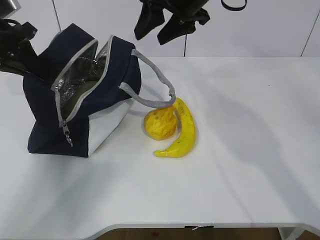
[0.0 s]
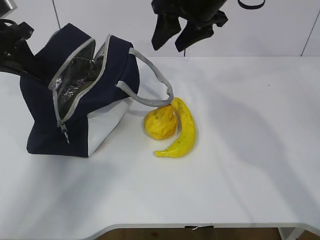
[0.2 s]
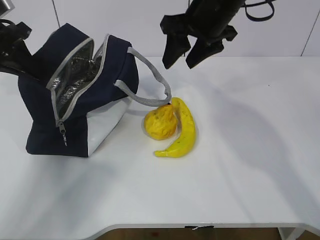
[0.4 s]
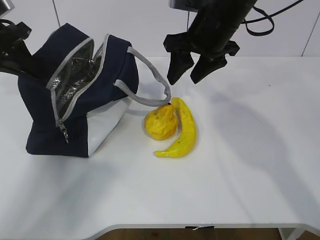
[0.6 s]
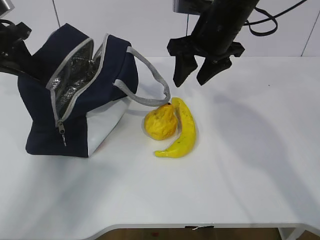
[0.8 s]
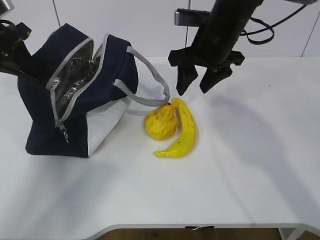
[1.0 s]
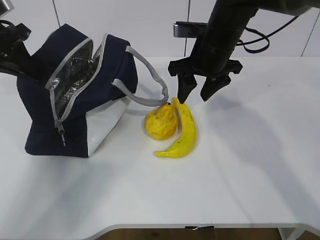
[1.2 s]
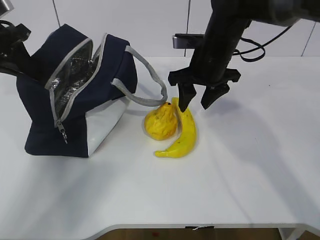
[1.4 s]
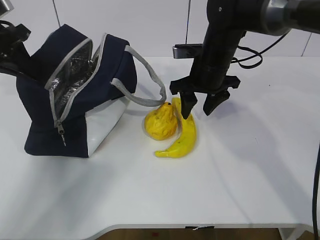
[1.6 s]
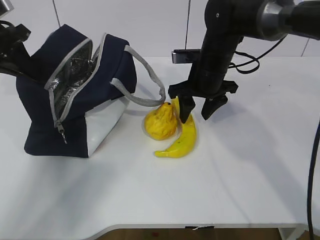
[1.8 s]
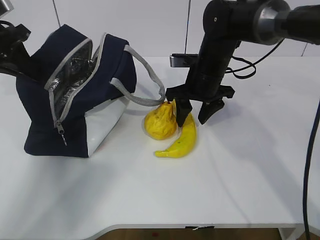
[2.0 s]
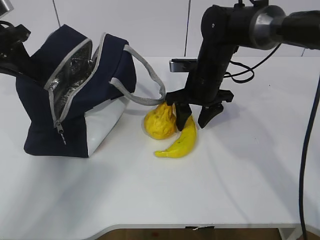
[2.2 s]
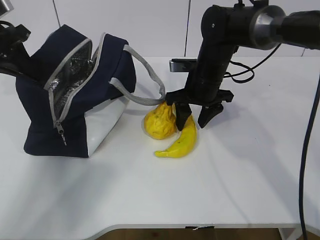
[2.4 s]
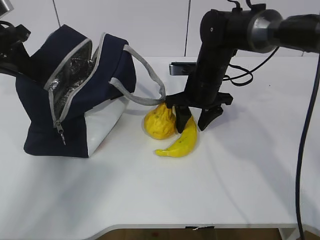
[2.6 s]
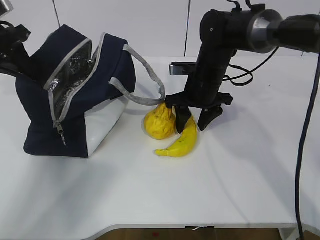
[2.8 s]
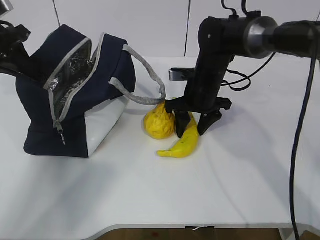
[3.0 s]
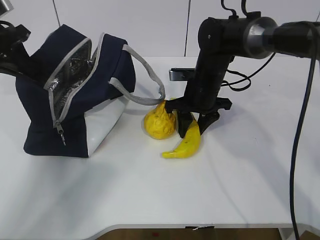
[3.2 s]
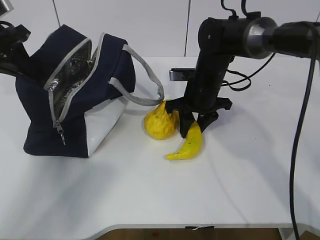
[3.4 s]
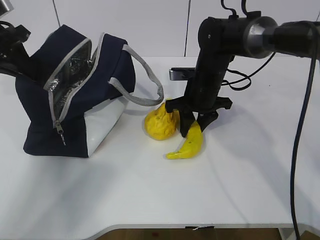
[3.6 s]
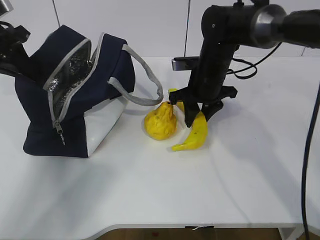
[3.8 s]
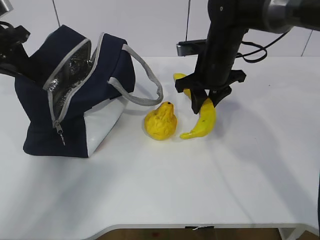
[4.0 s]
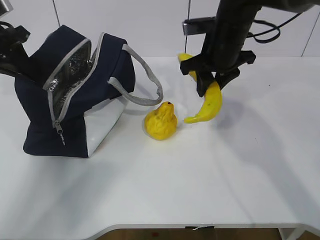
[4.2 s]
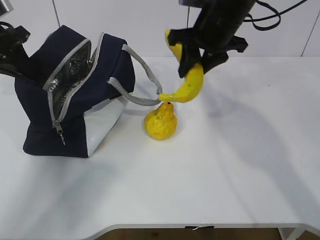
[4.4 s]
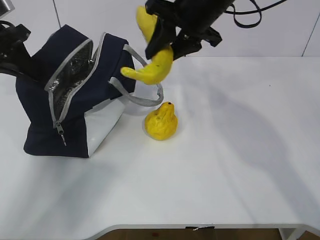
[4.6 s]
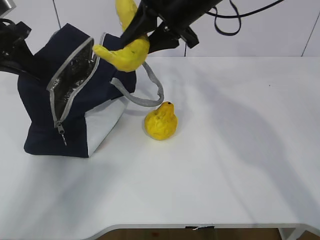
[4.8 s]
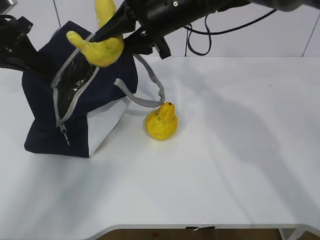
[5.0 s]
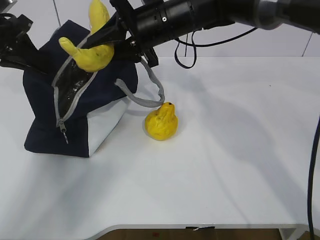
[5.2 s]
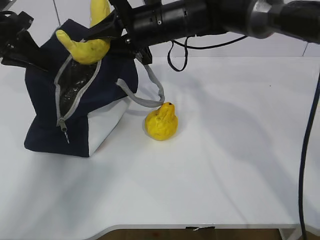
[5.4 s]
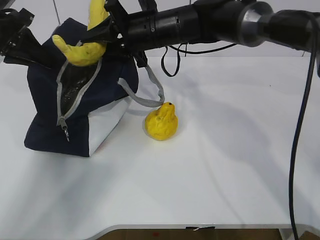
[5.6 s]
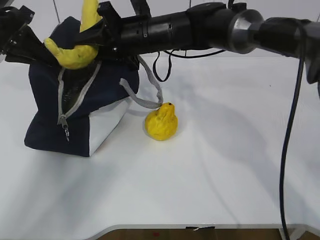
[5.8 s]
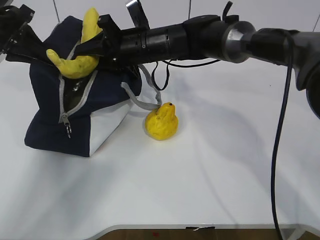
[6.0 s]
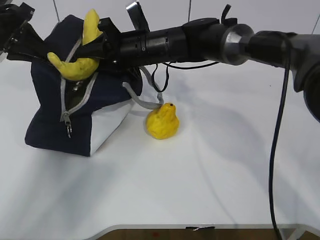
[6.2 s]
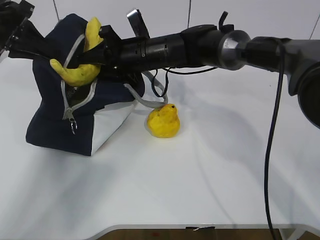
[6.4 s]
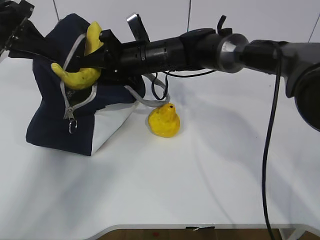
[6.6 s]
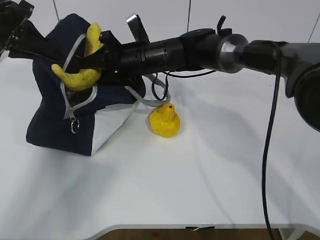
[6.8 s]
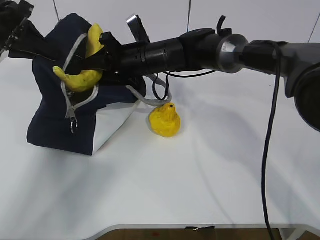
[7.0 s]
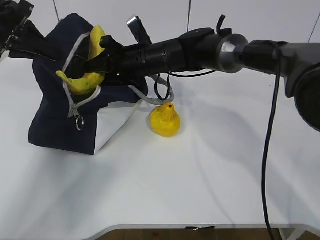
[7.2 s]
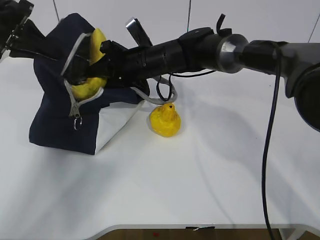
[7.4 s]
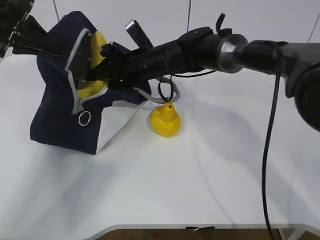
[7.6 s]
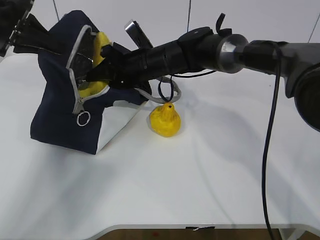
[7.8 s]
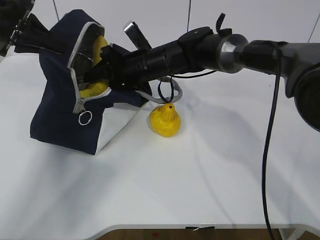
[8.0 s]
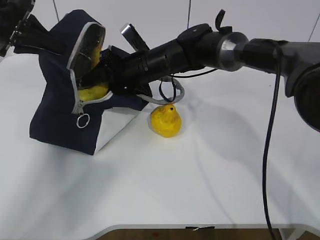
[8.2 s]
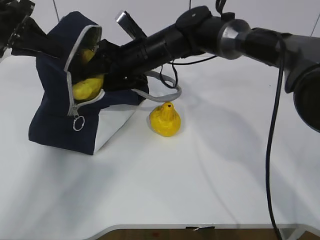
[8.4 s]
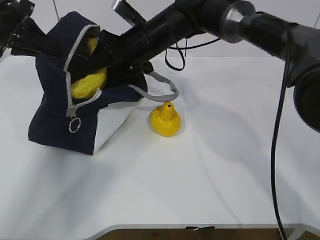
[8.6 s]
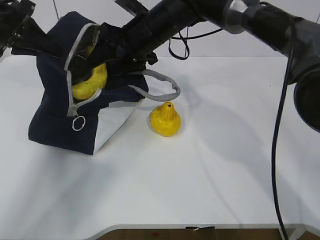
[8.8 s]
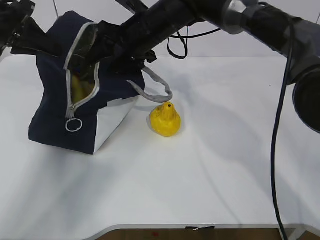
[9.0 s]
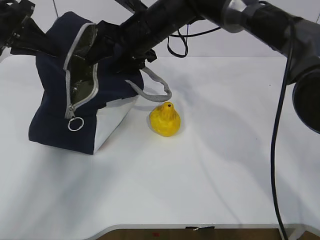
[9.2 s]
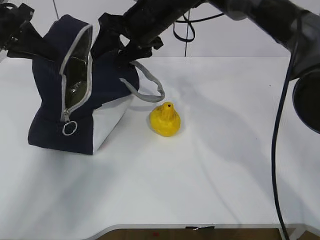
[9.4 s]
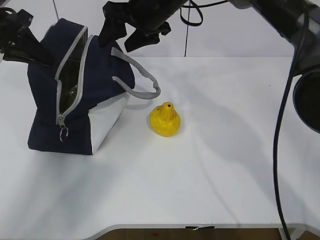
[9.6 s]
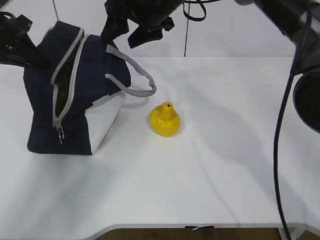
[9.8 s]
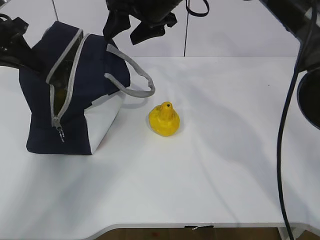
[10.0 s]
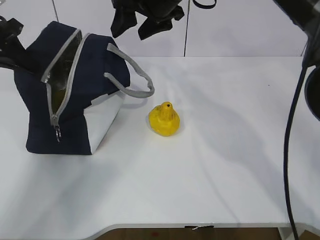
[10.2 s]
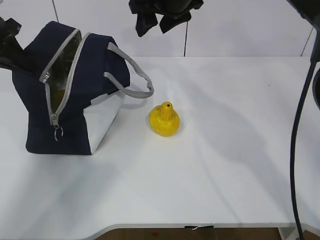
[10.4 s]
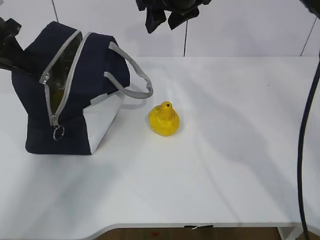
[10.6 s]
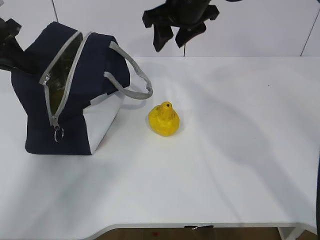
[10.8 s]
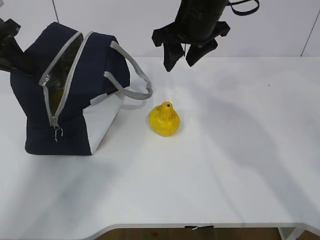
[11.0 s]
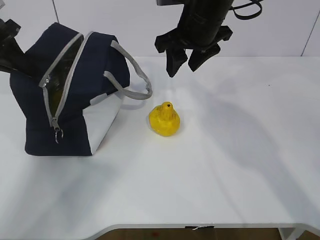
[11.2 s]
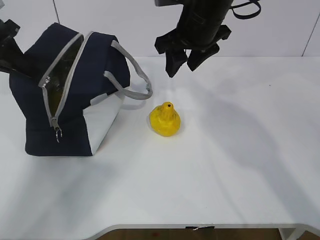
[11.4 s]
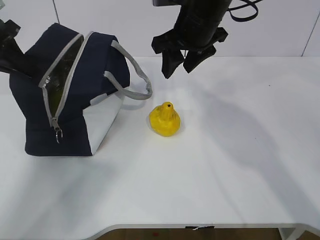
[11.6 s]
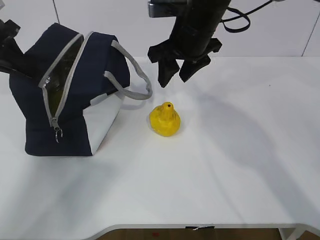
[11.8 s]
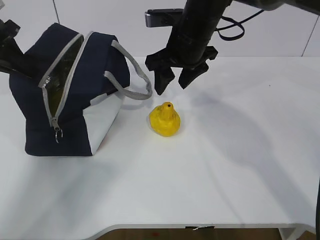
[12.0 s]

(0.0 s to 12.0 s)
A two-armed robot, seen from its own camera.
Step, 0.0 s - 3.4 s: Place it into the bag with your right hand.
Step, 3.6 s - 7.4 s: Grab the pear with your right hand.
Step, 9.4 s - 11.0 s: Grab the lunch bag with your right hand.
0.0 s - 1.6 s: The right gripper shifts some 15 cm downward.
1.6 s - 3.0 s: The right gripper moves downward, approximately 5 cm.
3.0 s - 4.4 s: The right gripper travels upward by about 15 cm.
4.4 s - 6.0 s: The right gripper heads to the left and downward, covering some 15 cm.
7.6 s - 9.0 s: The right gripper is displaced upward by some 5 cm, and opens its fingers.
9.0 s - 10.4 s: The right gripper is displaced upward by some 5 cm.
10.4 s - 12.0 s: The right gripper travels downward by approximately 5 cm.

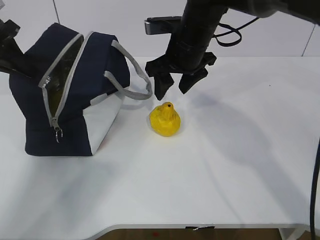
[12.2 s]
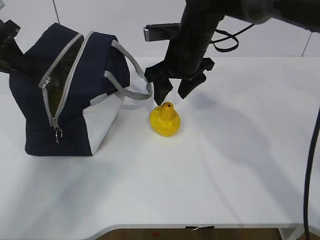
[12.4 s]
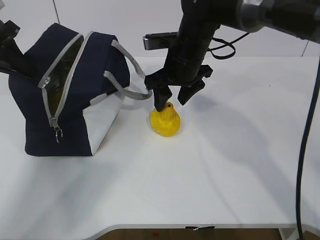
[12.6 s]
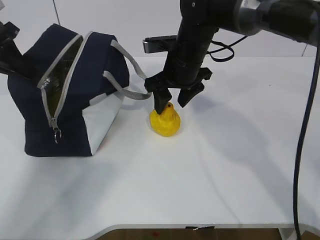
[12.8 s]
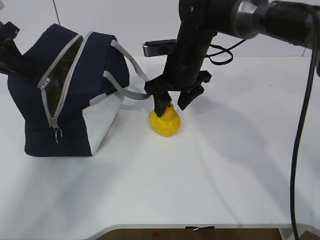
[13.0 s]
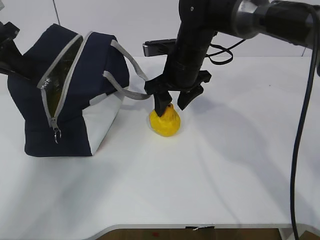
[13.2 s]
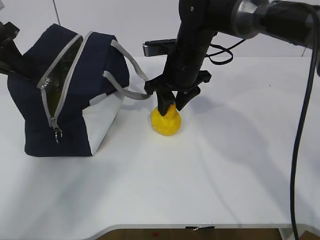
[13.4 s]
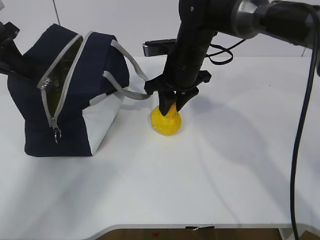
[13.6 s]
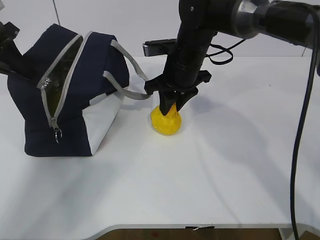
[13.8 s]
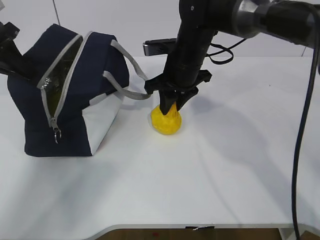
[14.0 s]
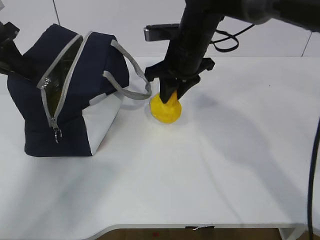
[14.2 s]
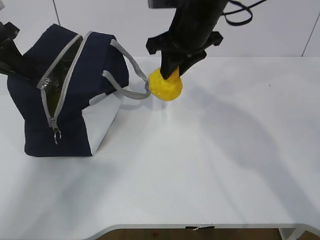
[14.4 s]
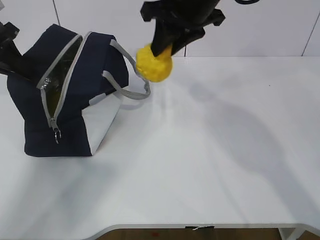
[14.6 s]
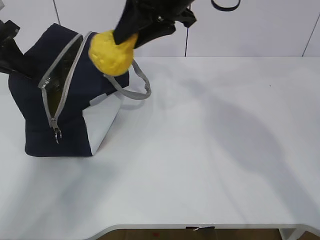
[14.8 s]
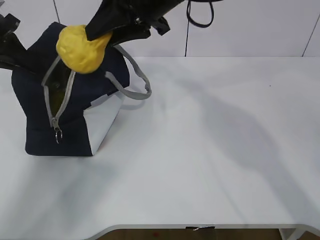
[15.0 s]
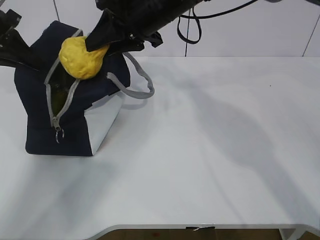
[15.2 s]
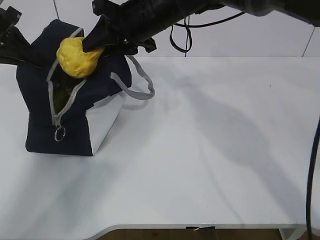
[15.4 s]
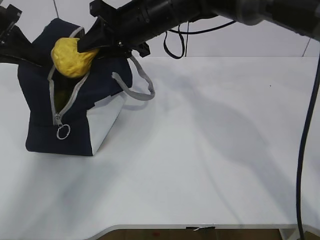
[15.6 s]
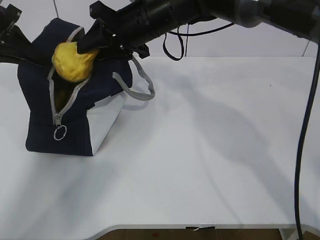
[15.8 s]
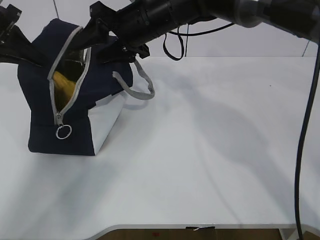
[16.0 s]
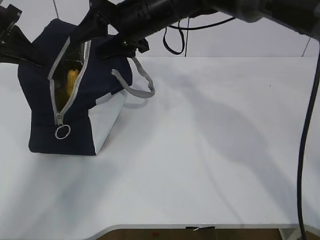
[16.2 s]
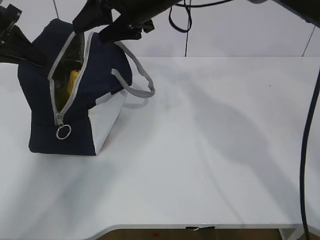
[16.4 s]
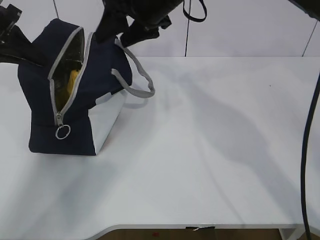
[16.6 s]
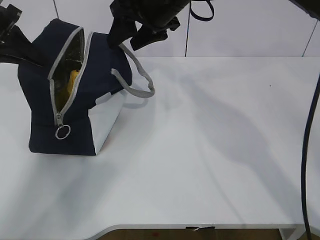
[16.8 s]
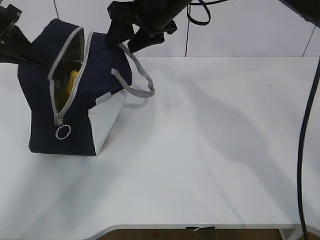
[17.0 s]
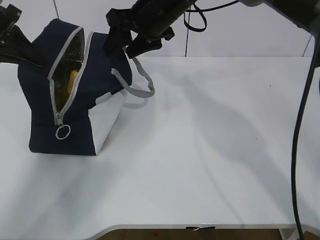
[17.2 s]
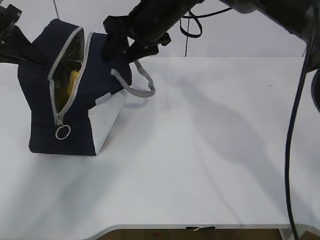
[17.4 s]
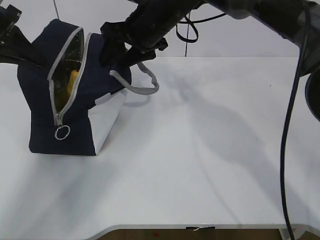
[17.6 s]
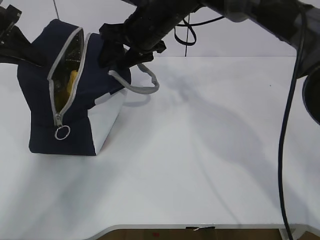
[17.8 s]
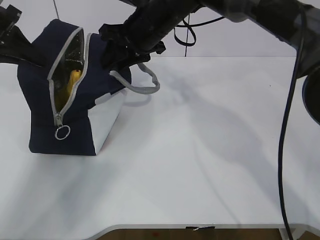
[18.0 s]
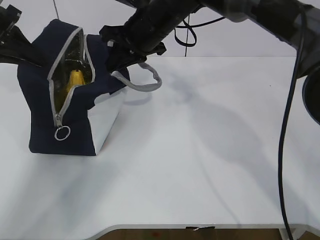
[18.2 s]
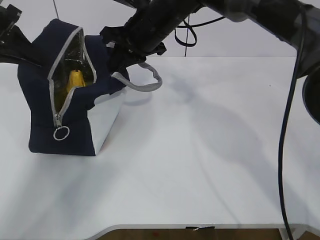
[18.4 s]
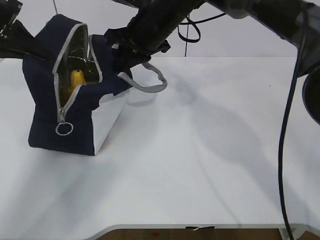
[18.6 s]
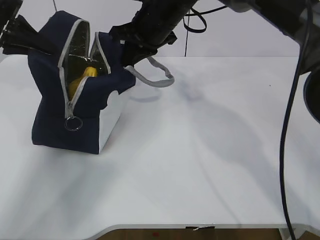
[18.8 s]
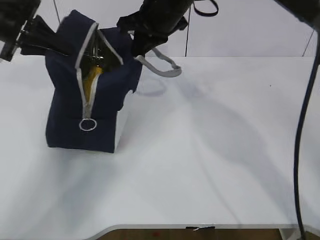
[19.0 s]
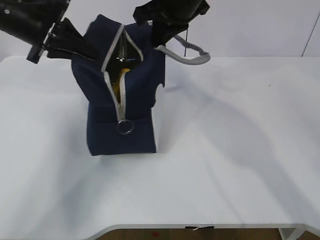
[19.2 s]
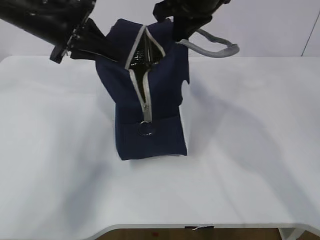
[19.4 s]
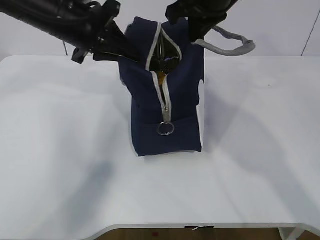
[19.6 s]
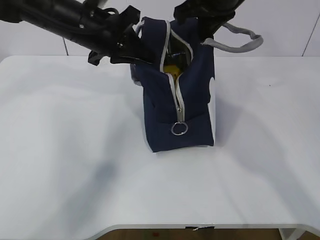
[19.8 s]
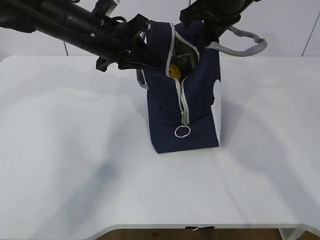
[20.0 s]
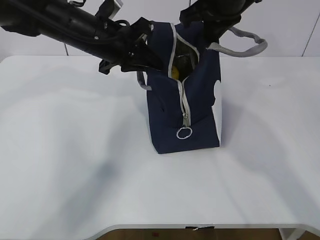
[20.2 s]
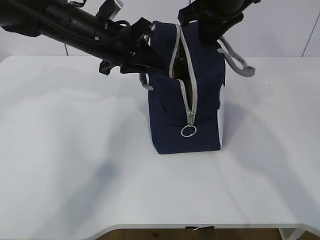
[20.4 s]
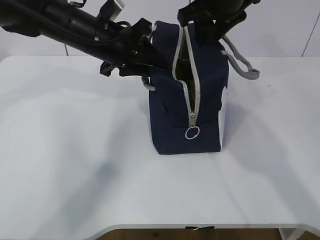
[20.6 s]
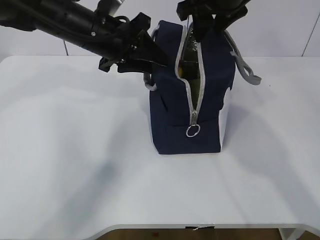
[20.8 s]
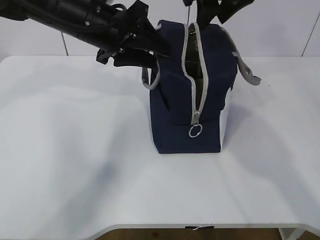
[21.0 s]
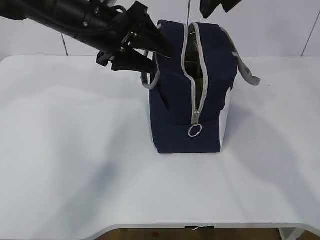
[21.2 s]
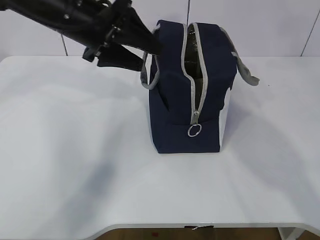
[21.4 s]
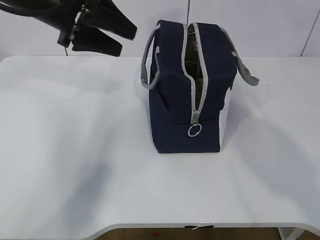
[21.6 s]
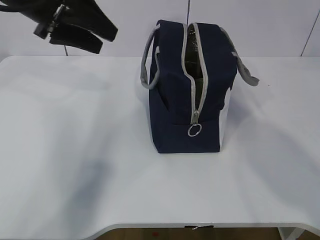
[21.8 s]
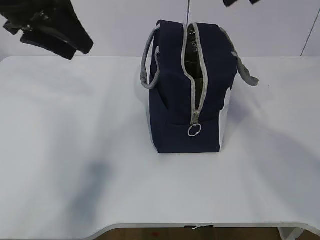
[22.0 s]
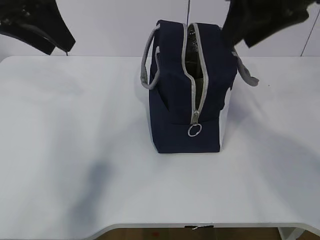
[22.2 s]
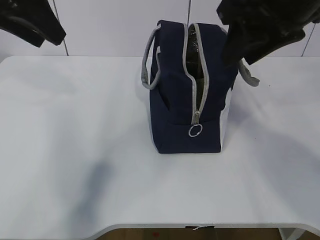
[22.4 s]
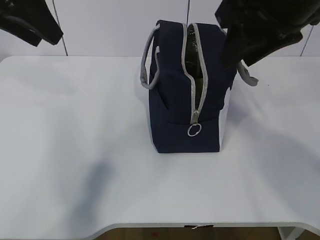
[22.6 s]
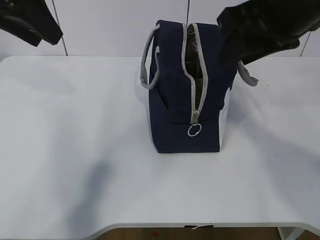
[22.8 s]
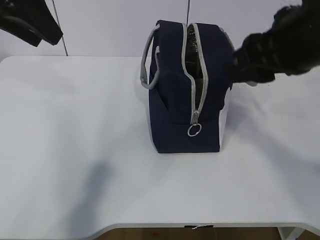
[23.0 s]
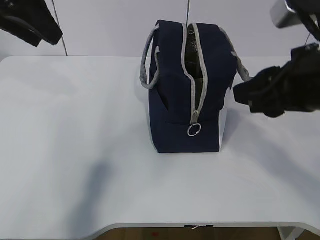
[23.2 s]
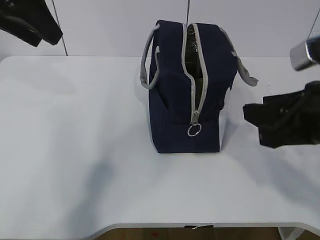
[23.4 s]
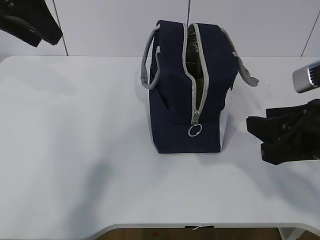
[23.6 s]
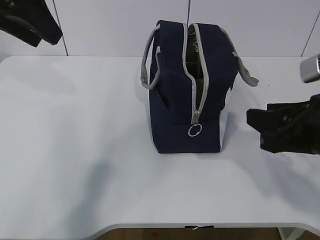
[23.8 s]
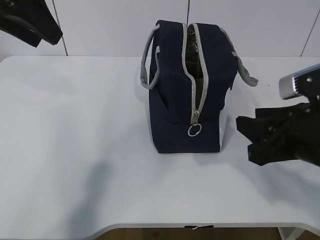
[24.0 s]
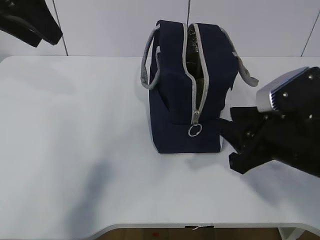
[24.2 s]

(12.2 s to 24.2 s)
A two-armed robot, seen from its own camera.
12.2 s - 13.8 s: The right gripper closes.
13.8 s - 15.2 s: The right gripper heads upward, covering about 10 cm.
15.2 s - 16.6 s: The right gripper opens up.
16.6 s - 18.2 s: The right gripper is displaced downward by approximately 5 cm, and closes up.
18.2 s - 19.8 s: The left gripper travels to the right by approximately 20 cm, while the right gripper shifts about 10 cm to the right and upward.
19.8 s - 21.2 s: The left gripper opens its fingers. Meanwhile the right gripper moves approximately 5 cm, and opens up.
21.2 s - 22.6 s: The left gripper goes about 15 cm to the left, upward and backward, while the right gripper travels backward by some 10 cm.
22.6 s - 24.2 s: The right gripper shifts approximately 20 cm downward and backward.
